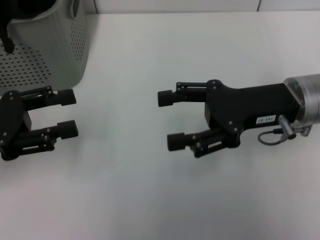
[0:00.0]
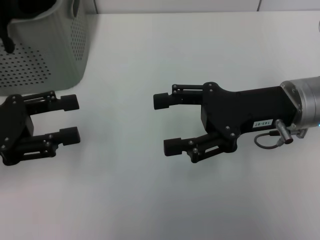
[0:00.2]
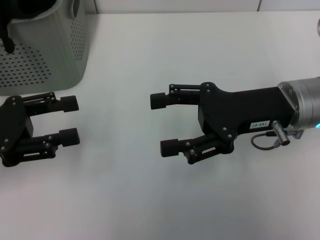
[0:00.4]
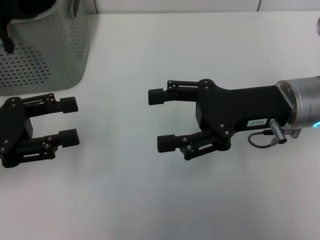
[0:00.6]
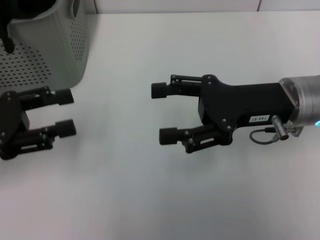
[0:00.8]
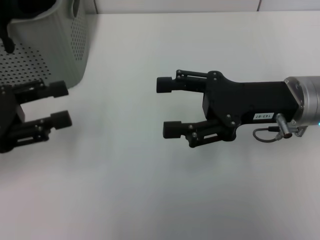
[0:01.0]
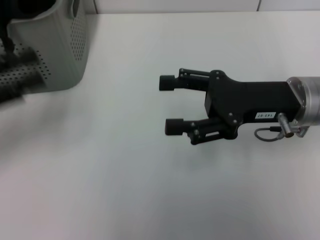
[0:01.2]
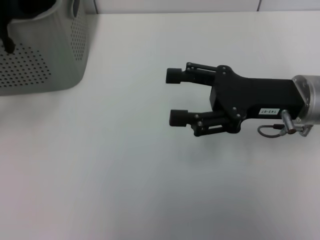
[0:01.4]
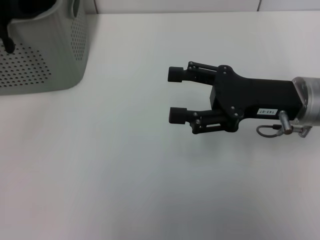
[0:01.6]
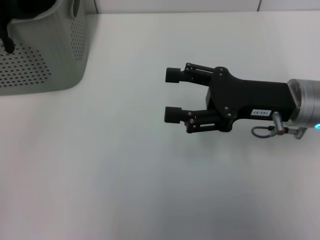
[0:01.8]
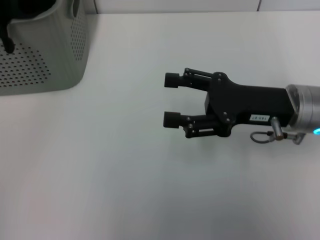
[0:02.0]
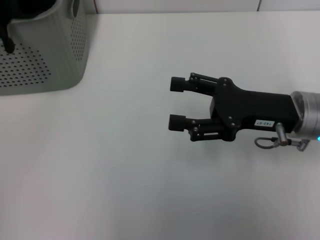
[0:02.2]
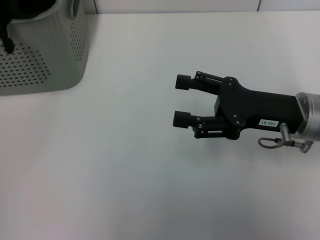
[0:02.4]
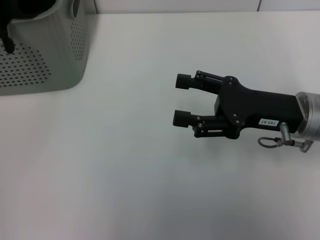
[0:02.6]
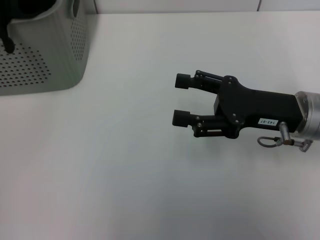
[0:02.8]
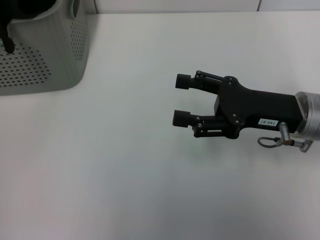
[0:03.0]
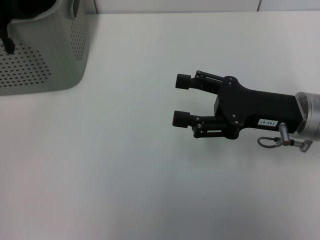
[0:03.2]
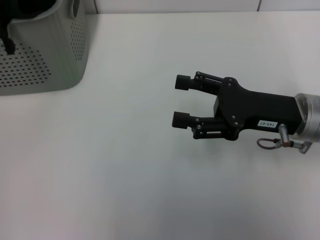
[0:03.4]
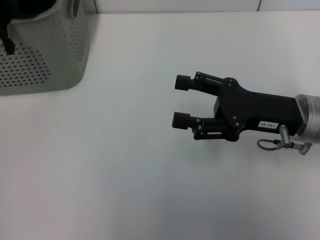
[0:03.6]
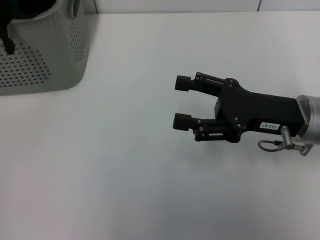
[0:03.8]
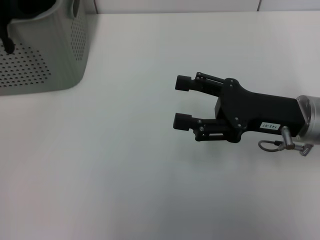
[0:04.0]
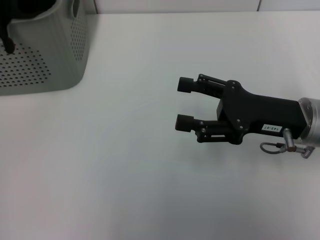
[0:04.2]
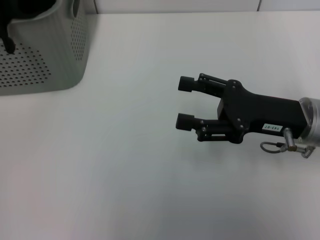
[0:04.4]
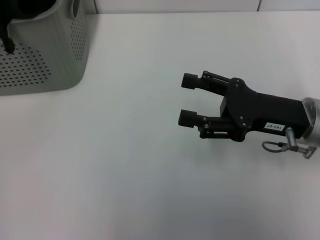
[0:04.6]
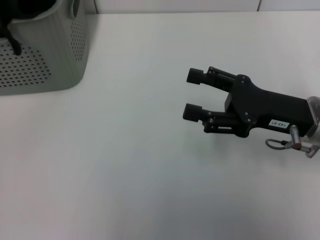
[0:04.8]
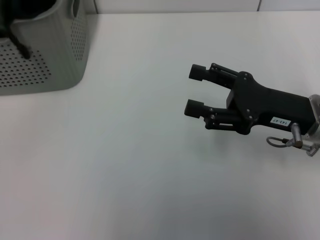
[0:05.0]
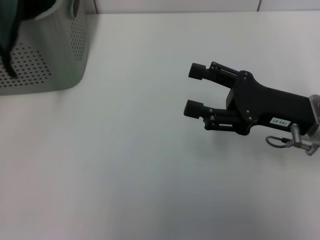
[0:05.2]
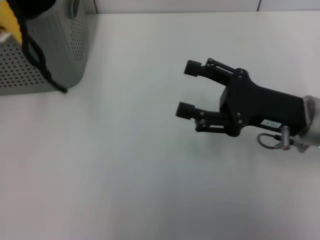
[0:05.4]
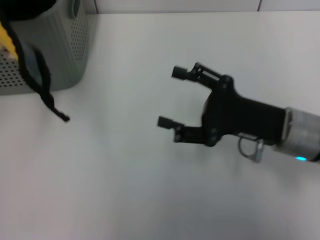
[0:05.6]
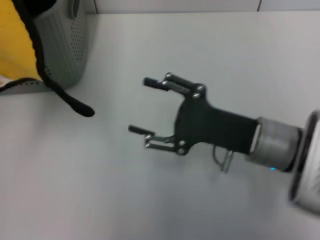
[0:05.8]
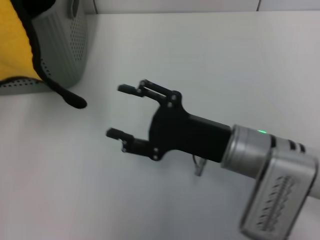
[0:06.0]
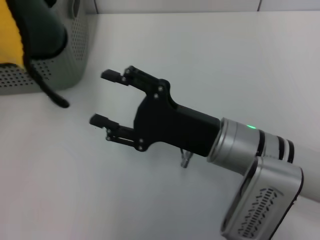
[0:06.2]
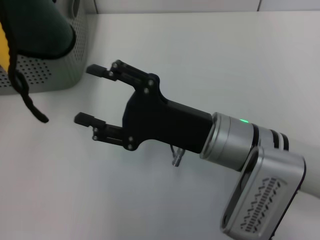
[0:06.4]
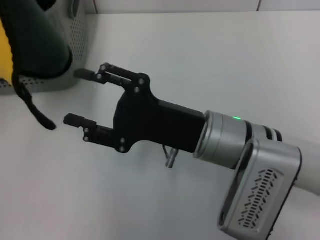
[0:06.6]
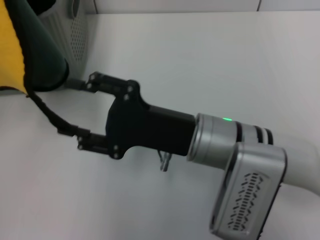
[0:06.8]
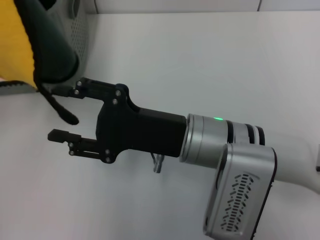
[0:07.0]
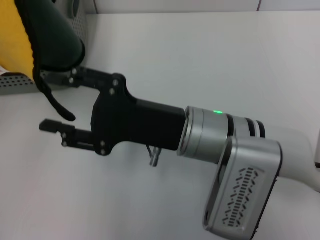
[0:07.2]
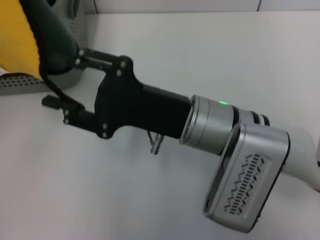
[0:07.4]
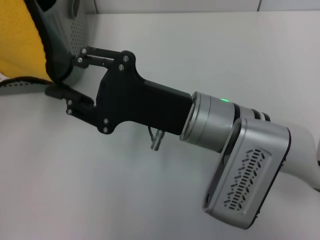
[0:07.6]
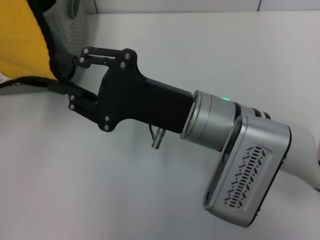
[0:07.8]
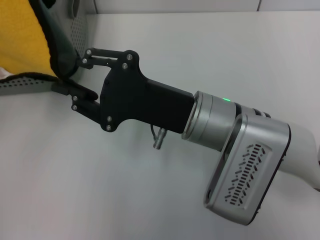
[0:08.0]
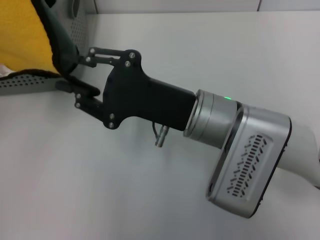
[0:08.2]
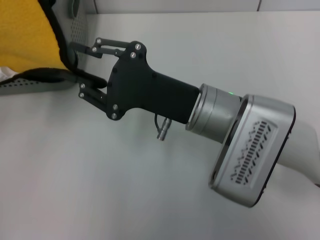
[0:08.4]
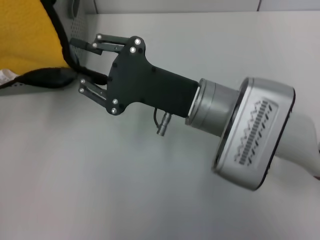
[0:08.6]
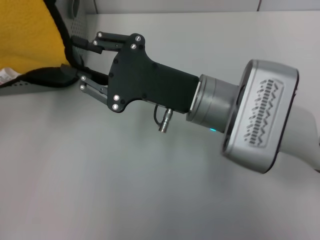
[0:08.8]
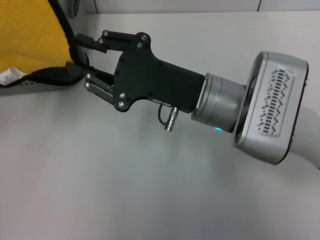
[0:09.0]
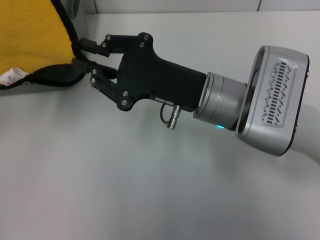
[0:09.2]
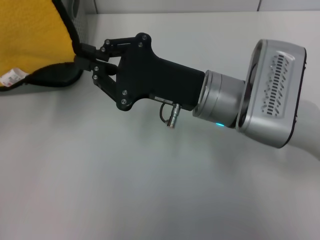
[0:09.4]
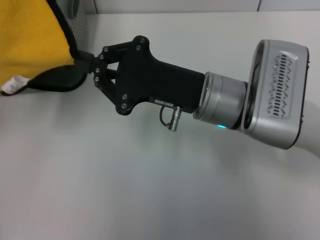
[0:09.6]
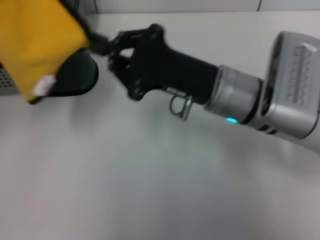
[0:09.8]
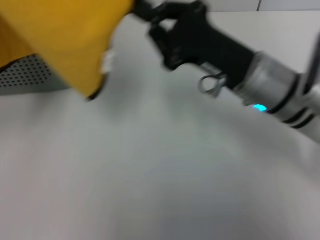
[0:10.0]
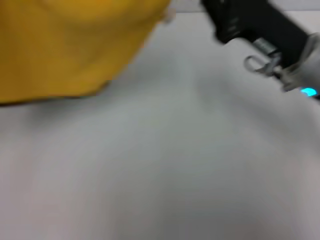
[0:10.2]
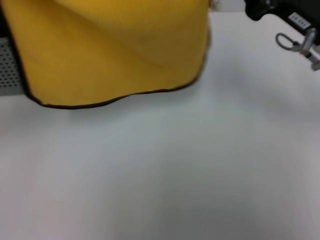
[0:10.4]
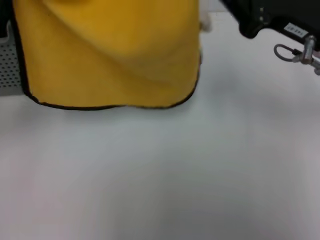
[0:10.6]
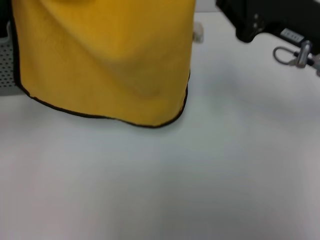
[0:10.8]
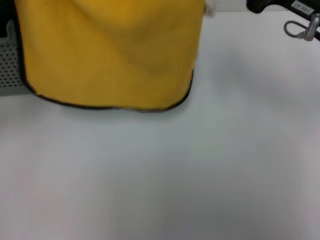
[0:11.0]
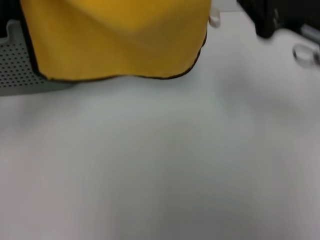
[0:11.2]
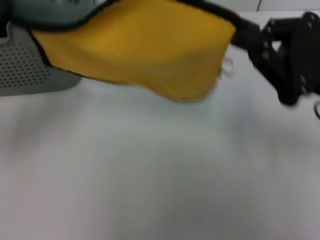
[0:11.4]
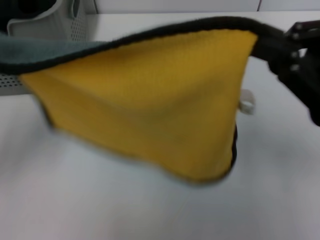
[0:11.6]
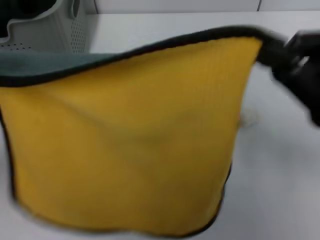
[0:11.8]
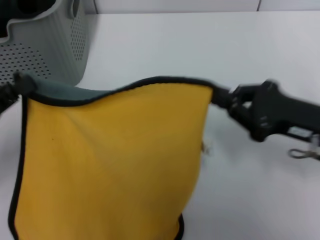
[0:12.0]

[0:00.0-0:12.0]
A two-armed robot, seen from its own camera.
Task of the whole recording: pick up the towel from the storage box and lay it flat on the table.
Step, 0:00.0 to 0:04.4: Pick up a towel with the left gripper.
Step, 0:04.6 to 0:09.6: Spread the towel flat with the right gripper.
0:00.0 to 0:01.6: The left gripper goes about 10 cm to the left and upward.
0:01.6 to 0:03.0: The left gripper moves forward, approximately 10 cm.
0:03.0 to 0:04.4: The left gripper closes its fingers.
0:04.4 to 0:06.0: The left gripper is displaced upward, backward and to the right by some 15 cm, while the right gripper moves to the left, about 10 cm.
0:06.0 to 0:07.6: The right gripper moves to the left, roughly 5 cm.
0:09.0 to 0:10.4: The right gripper shifts roughly 15 cm to the right and upward.
0:10.4 to 0:12.0: The left gripper heads downward, covering roughly 10 cm, while the right gripper is displaced backward and downward by about 10 cm.

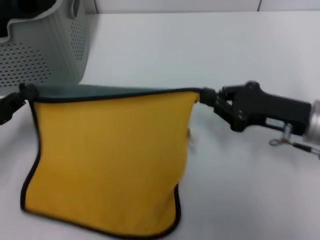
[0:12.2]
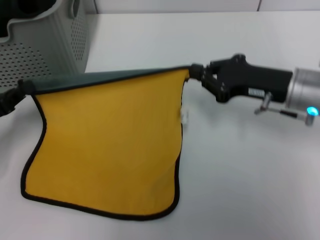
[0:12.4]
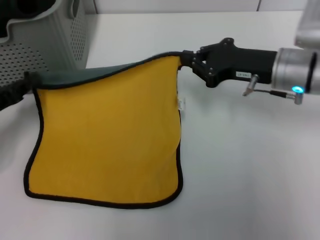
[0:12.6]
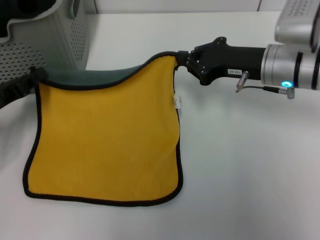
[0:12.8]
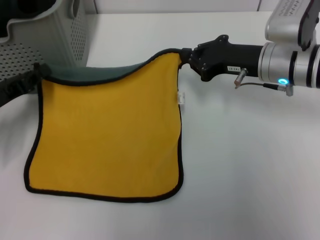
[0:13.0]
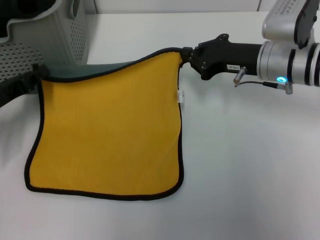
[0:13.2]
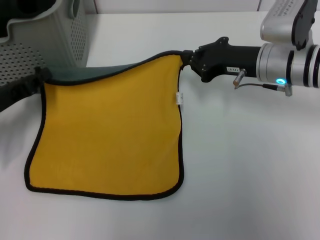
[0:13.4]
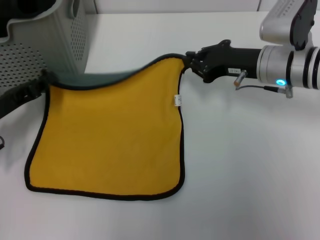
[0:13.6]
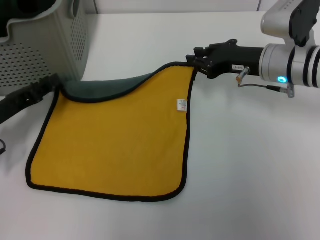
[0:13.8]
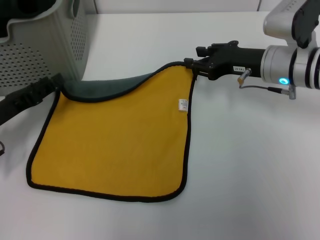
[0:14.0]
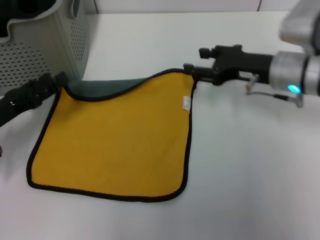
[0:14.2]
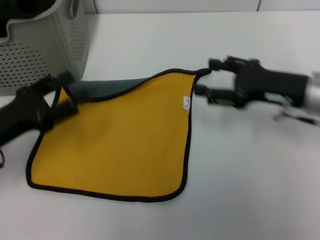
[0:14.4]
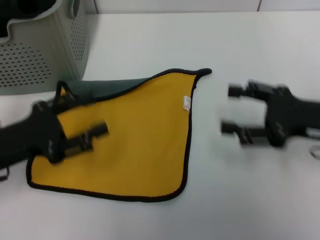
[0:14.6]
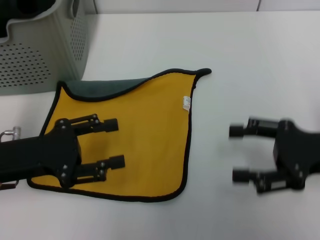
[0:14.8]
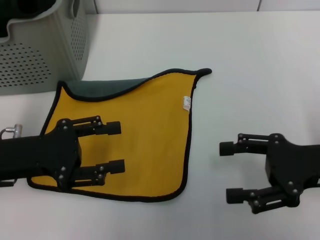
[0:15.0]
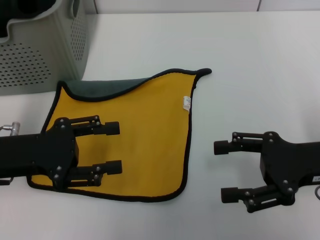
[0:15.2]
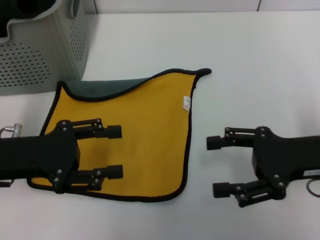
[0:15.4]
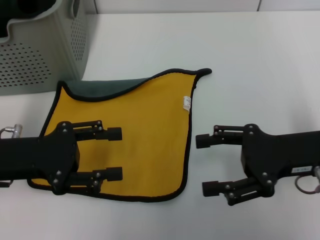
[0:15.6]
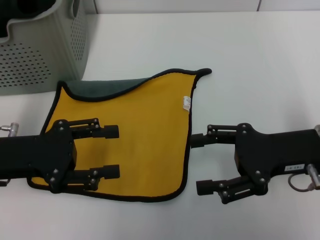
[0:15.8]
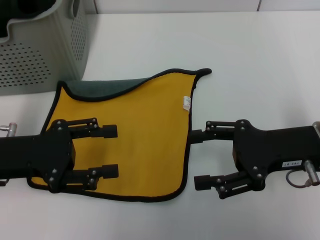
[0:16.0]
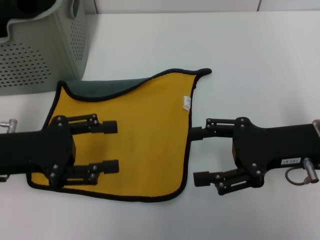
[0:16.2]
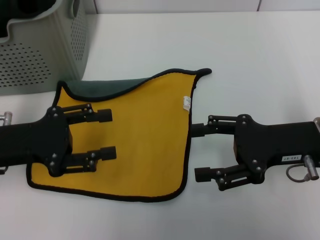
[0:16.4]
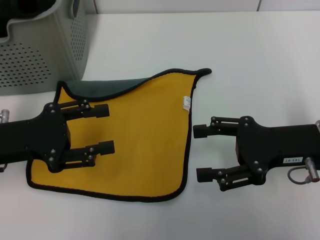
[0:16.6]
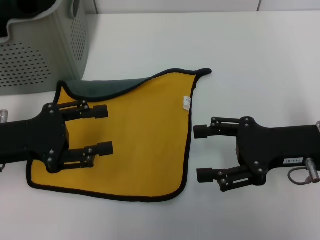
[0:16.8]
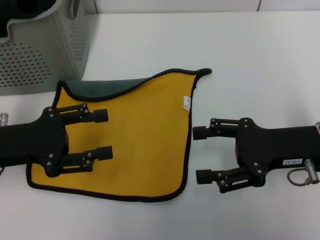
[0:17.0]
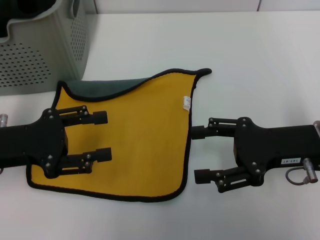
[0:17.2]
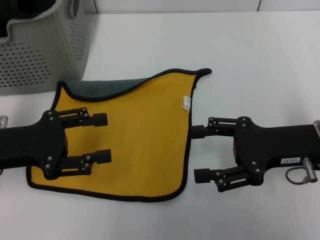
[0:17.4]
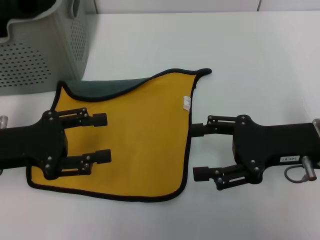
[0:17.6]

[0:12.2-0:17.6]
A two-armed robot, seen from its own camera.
Task of the whole recording: pick up the towel from the storage box and lay it flat on the table.
0:12.2 to 0:13.6: The right gripper heads forward, covering some 10 cm; the left gripper travels forward by approximately 5 cm.
0:13.6 to 0:15.0: The left gripper changes place by approximately 10 cm, and opens its fingers. Meanwhile the right gripper shifts about 15 cm backward and to the right, and opens its fingers.
0:15.0 to 0:17.6: There are only small adjustments of the grippers.
